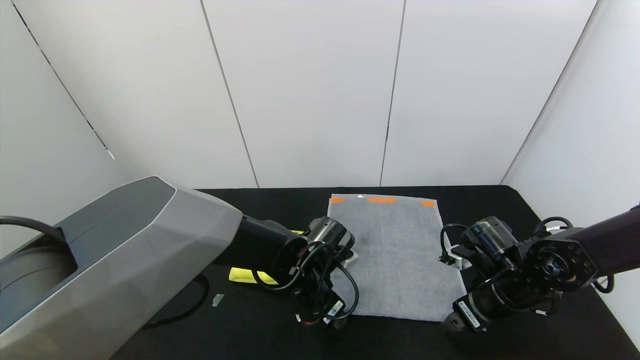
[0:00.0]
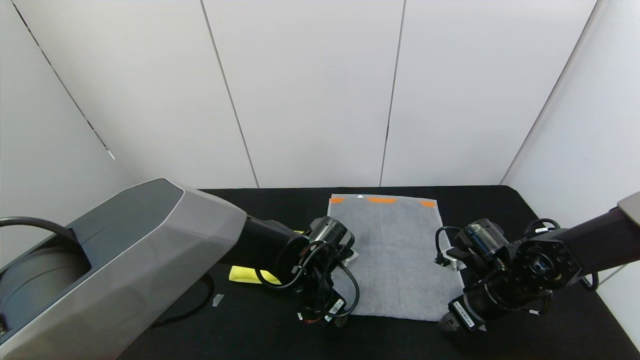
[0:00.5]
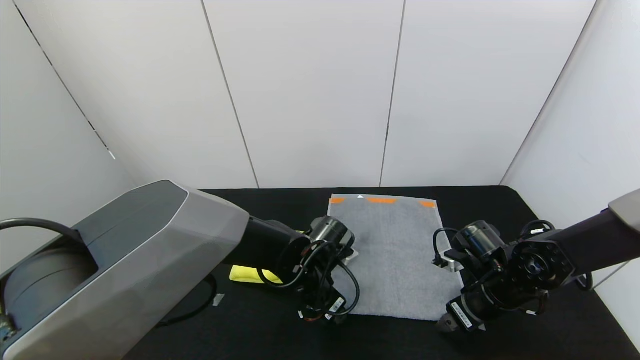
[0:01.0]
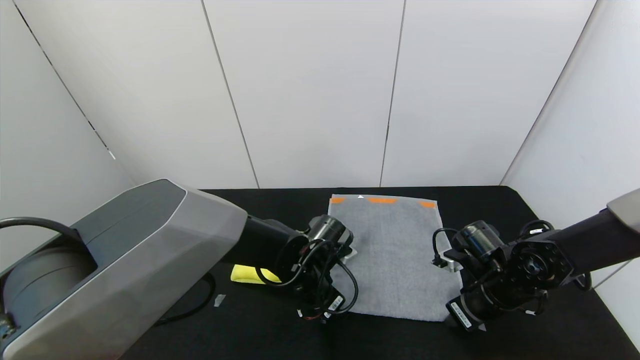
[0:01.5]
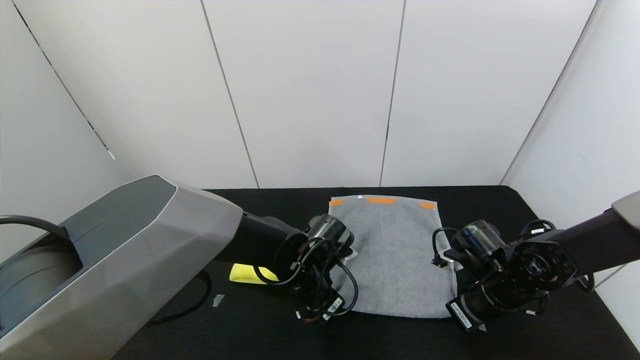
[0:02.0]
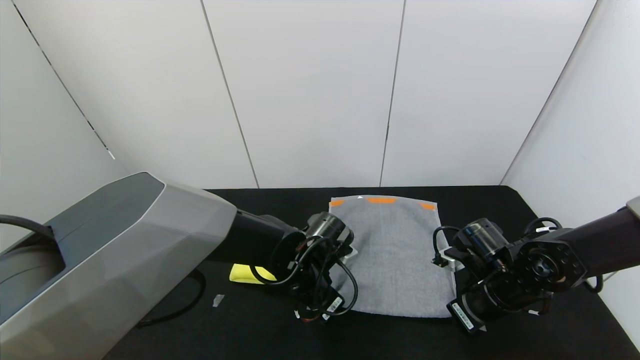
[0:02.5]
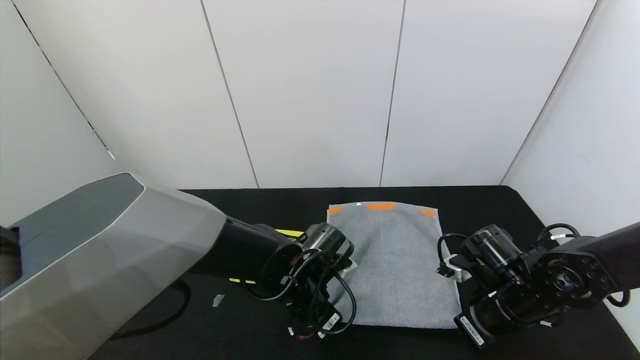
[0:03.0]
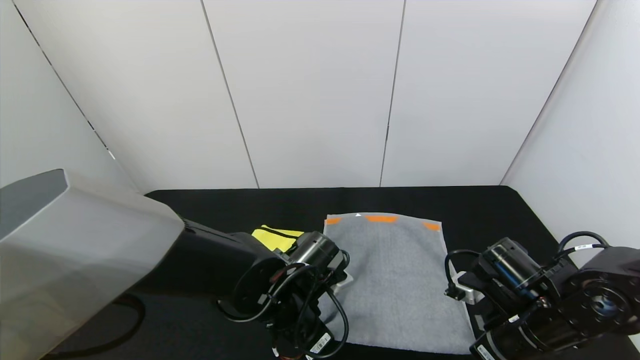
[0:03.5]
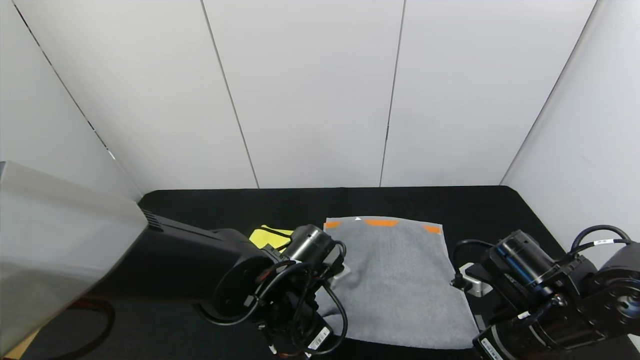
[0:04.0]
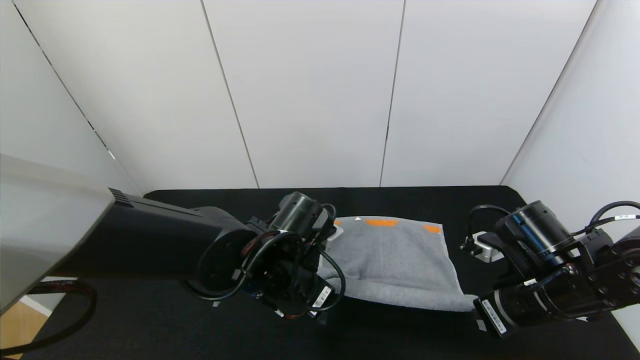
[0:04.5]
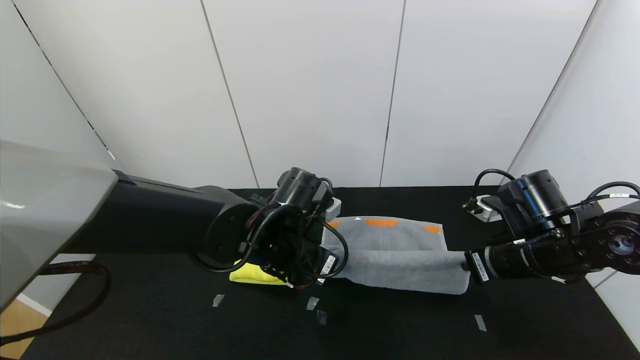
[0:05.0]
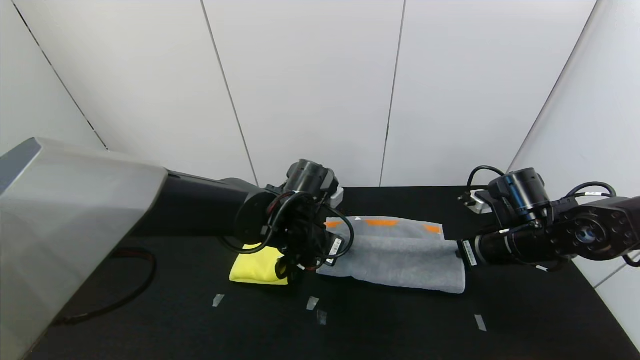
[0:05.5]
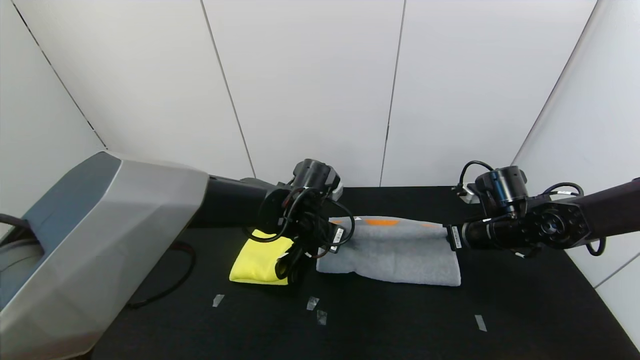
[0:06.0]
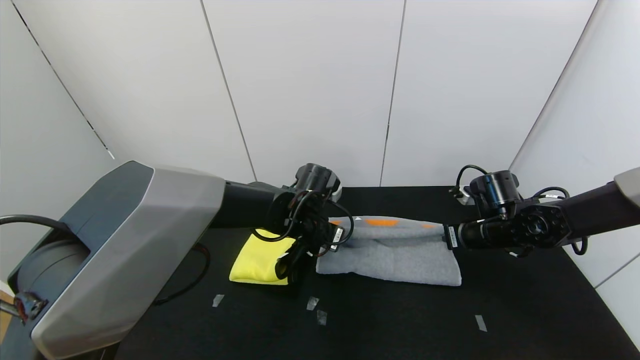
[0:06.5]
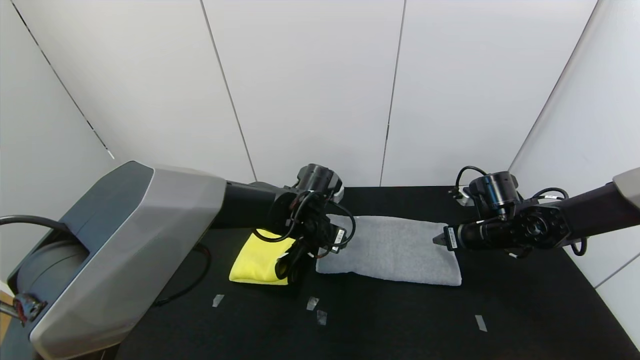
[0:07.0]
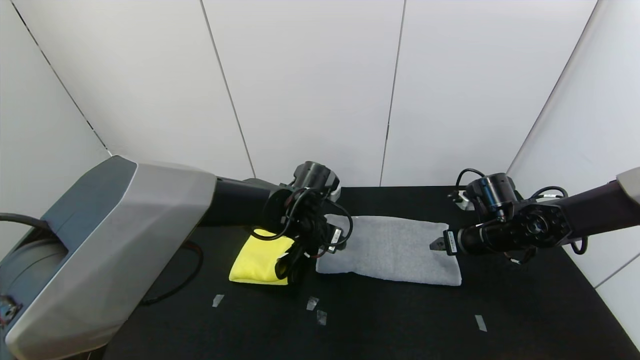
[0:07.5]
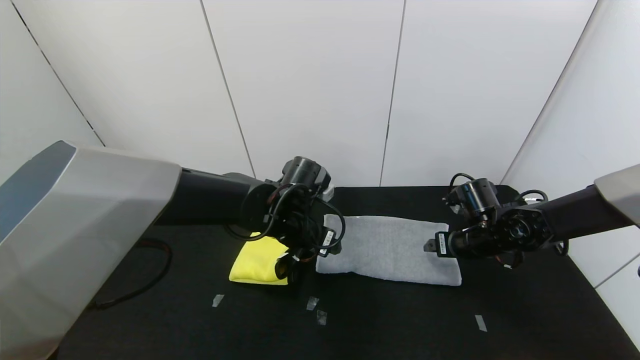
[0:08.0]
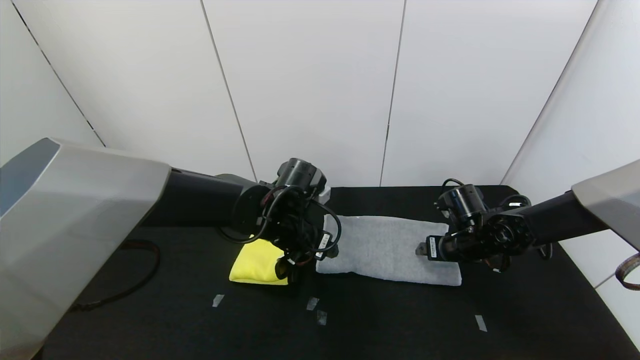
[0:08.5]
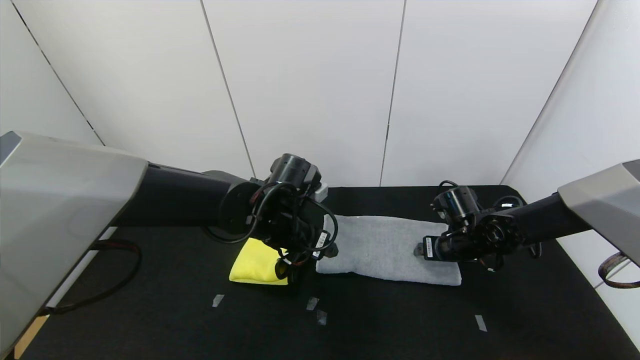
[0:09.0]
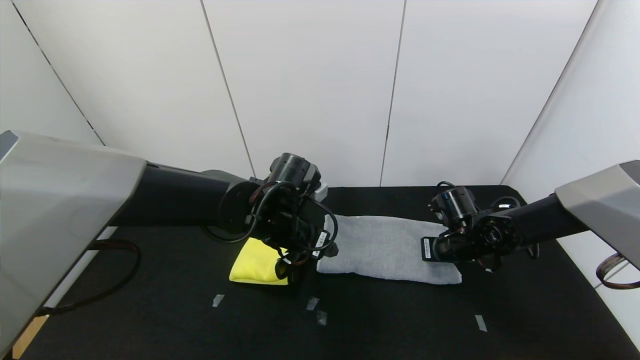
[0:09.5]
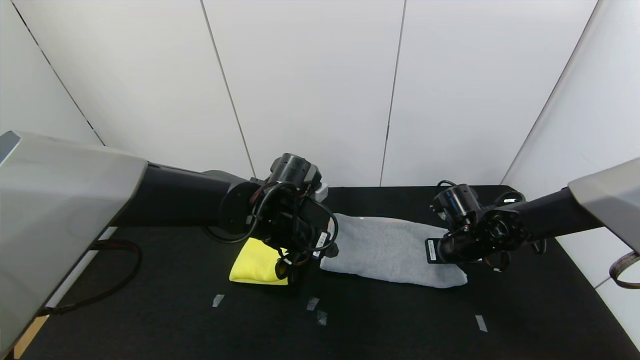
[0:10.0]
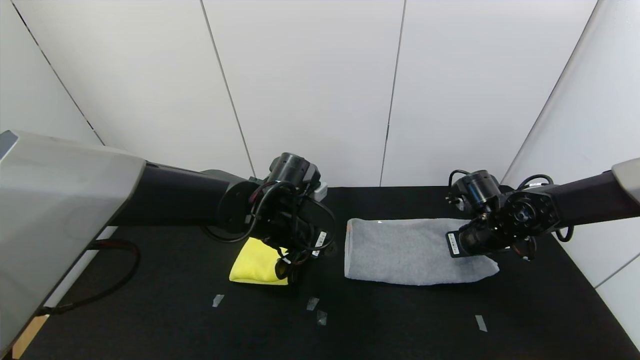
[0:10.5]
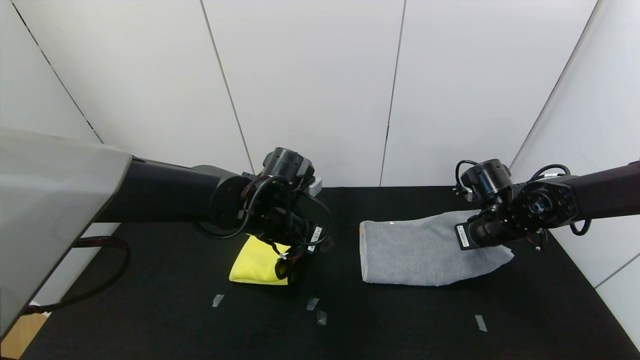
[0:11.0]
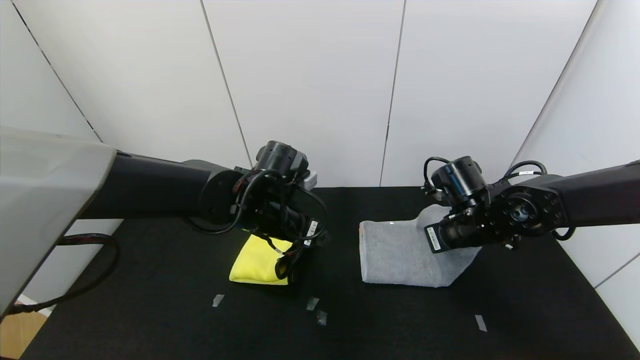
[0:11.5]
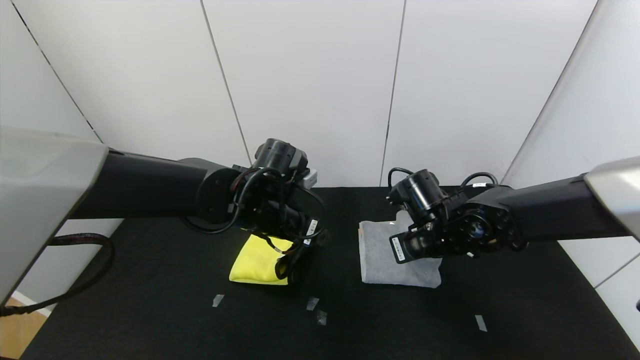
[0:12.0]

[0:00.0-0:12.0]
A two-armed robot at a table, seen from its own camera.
Task of the whole recording: Use the gripper to fold the yellow towel and grey towel in half twice,then put the yellow towel on the grey towel.
Step, 0:00.0 to 0:07.5: Fold the gray towel upwards with the left gripper.
Step, 0:00.0 to 0:07.5: Fold the gray towel upwards with the right gripper.
0:00.0 to 0:02.0: The right gripper closes; the left gripper closes its fingers.
0:02.0 to 0:04.0: The right gripper shifts about 10 cm backward and upward, while the left gripper heads backward, covering roughly 5 cm.
0:04.0 to 0:06.0: Both grippers travel together forward, roughly 15 cm.
0:06.0 to 0:08.0: The left gripper opens. Meanwhile the right gripper opens.
0:08.0 to 0:10.0: The right gripper closes up.
0:10.0 to 0:12.0: The right gripper is displaced to the left and upward by some 10 cm.

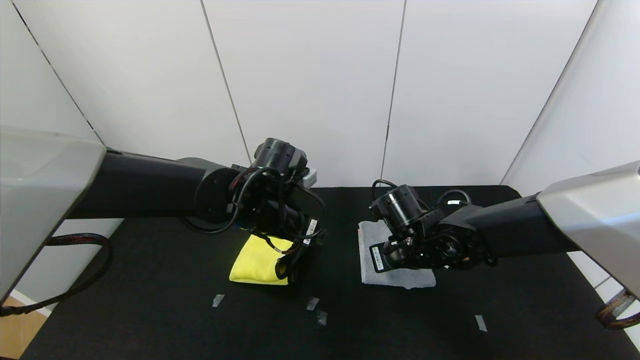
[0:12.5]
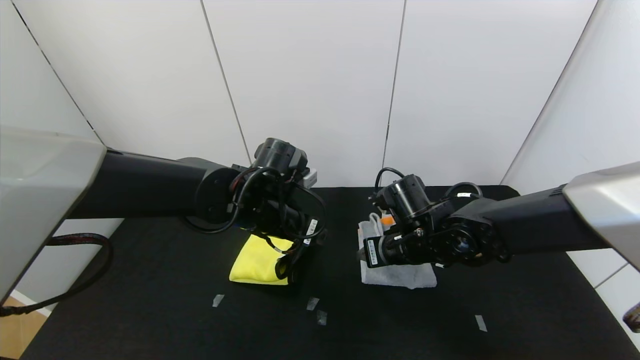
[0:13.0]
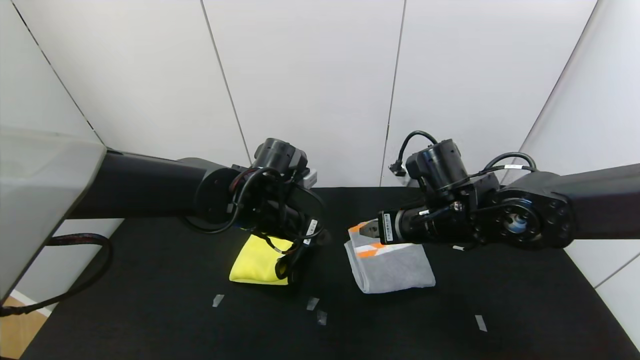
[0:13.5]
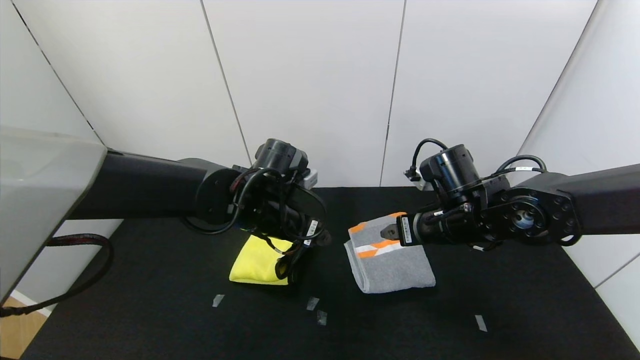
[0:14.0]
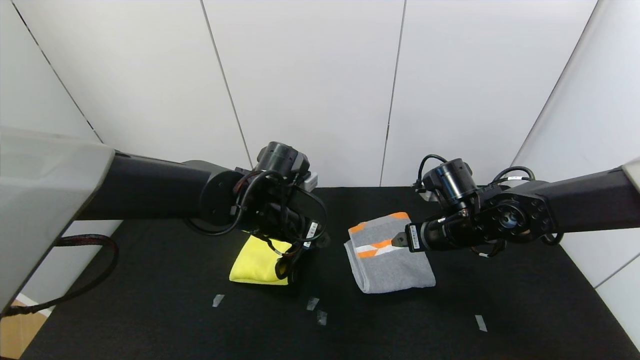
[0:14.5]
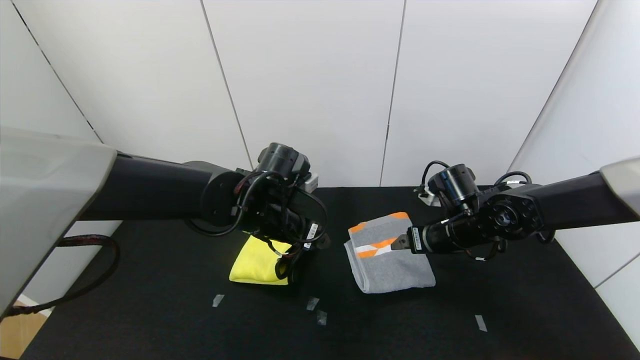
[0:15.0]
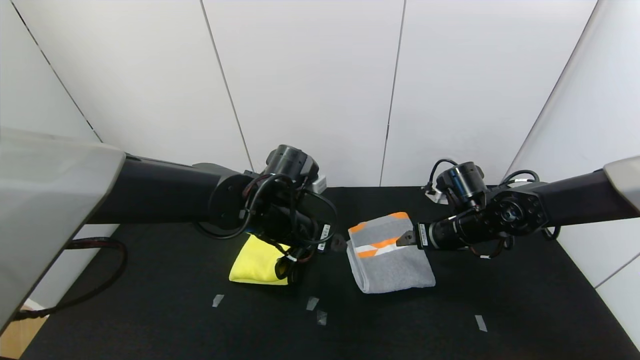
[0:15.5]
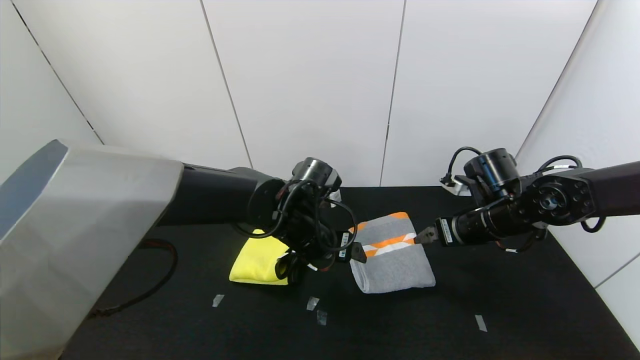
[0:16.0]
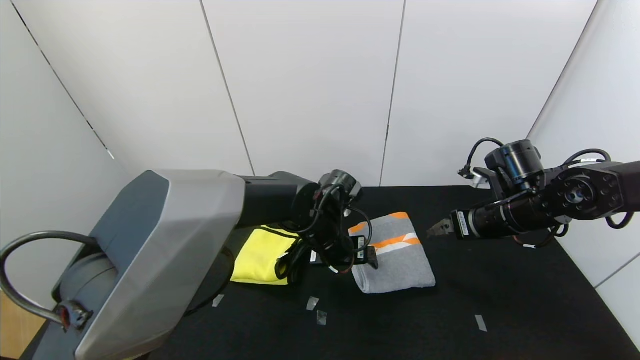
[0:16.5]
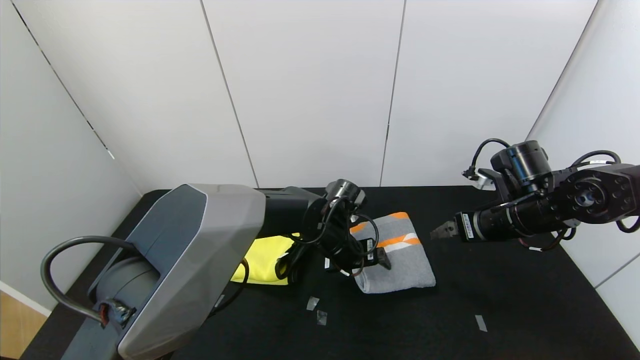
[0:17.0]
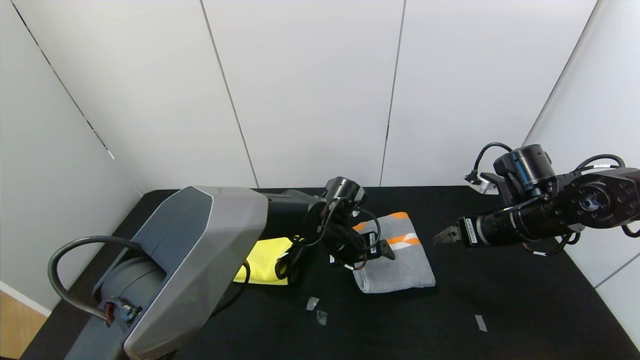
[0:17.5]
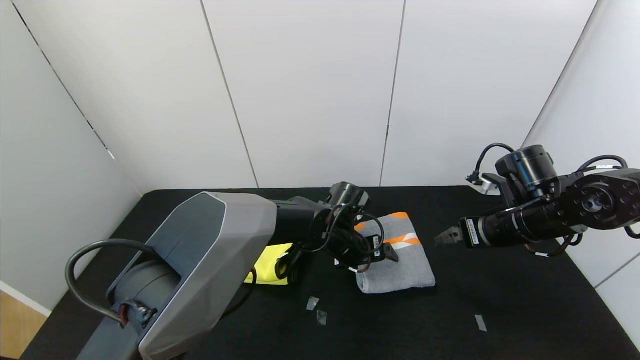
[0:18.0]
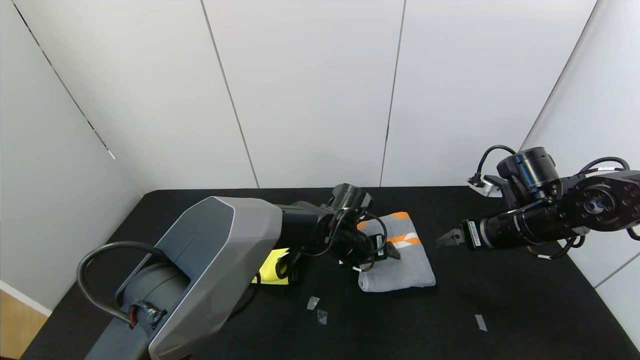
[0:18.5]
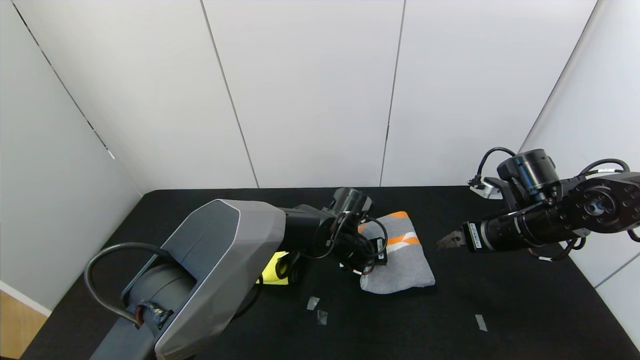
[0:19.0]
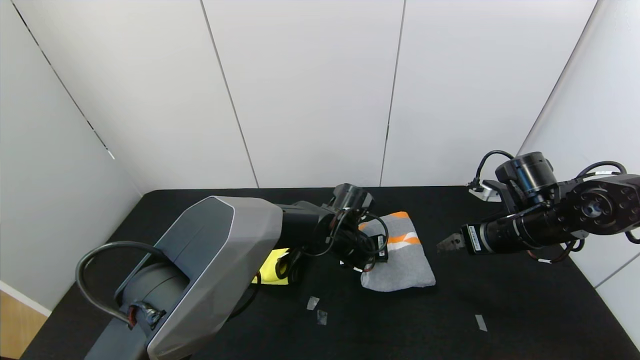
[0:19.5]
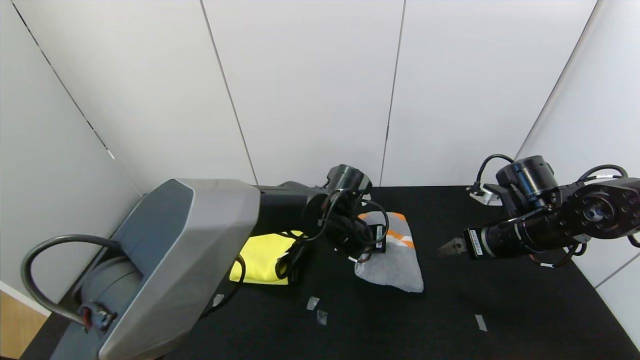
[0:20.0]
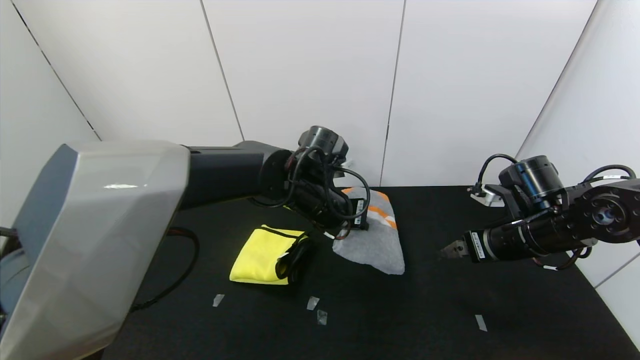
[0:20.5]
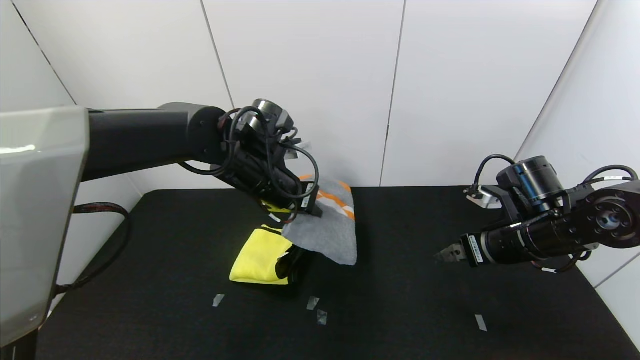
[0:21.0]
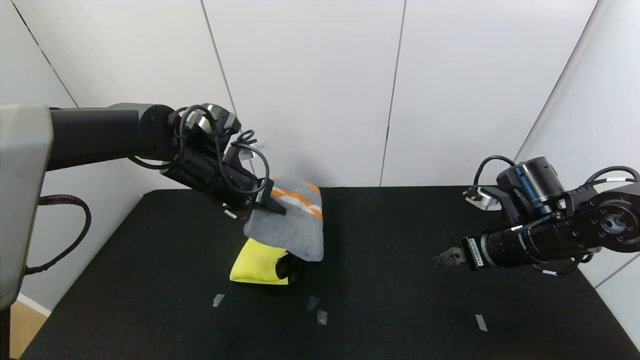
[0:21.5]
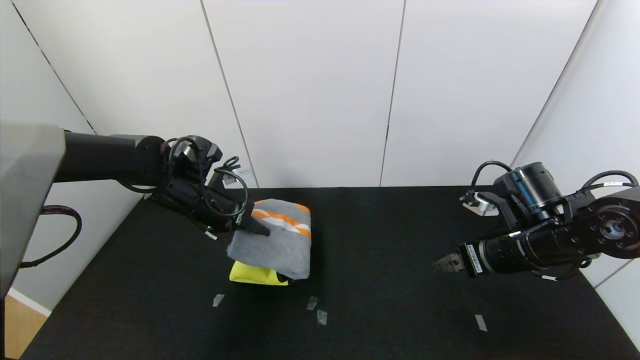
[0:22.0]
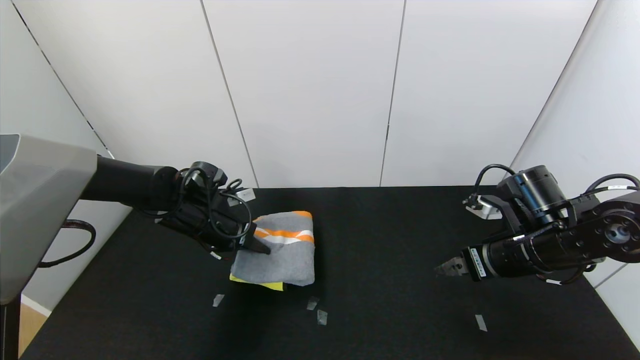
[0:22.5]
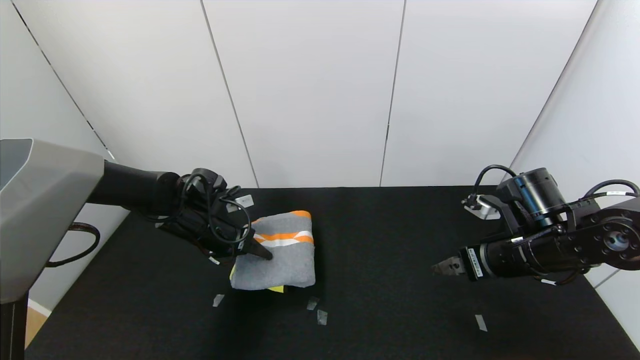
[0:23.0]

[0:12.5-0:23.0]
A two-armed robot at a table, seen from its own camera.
Task of the whole recording: Use the gripper to fold the yellow towel and grey towel in half twice,then put the yellow towel on the grey towel.
0:12.5 to 0:14.5: The right gripper goes about 5 cm to the right, and opens.
0:14.5 to 0:16.5: The left gripper heads to the right and downward, covering some 10 cm; the right gripper travels to the right by about 10 cm.
0:16.5 to 0:19.0: The left gripper ends up roughly 5 cm from where it was, and closes up.
0:19.0 to 0:21.0: The left gripper is displaced upward and to the left by approximately 20 cm.
0:21.0 to 0:23.0: The left gripper moves to the left and downward, some 15 cm, and opens up.
